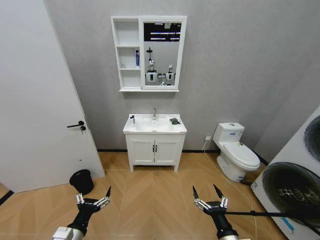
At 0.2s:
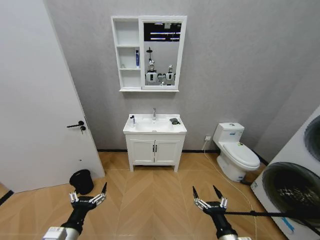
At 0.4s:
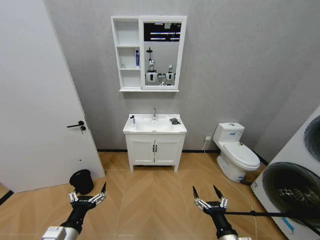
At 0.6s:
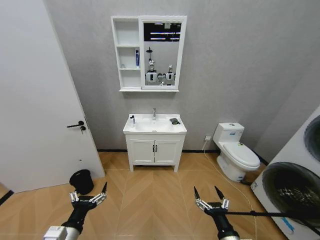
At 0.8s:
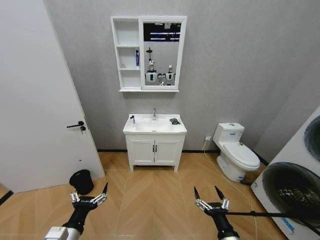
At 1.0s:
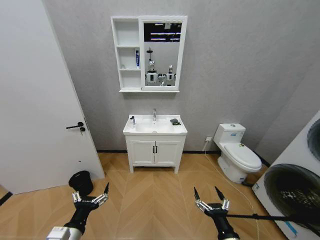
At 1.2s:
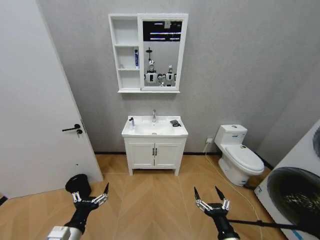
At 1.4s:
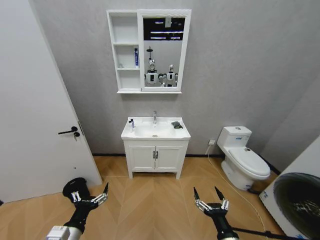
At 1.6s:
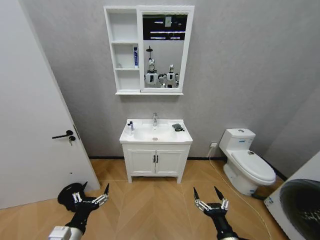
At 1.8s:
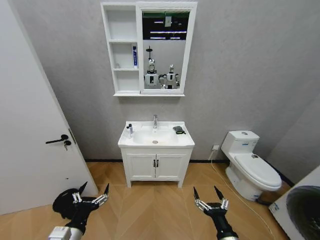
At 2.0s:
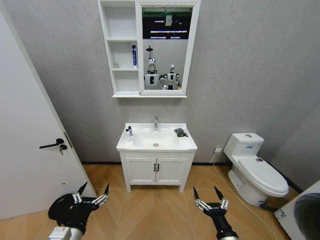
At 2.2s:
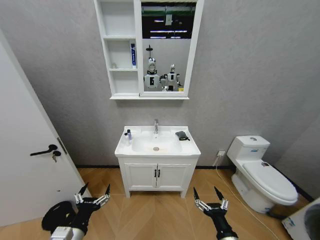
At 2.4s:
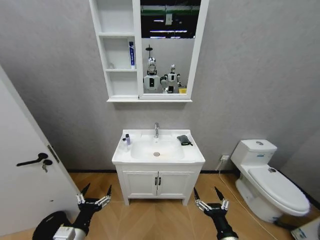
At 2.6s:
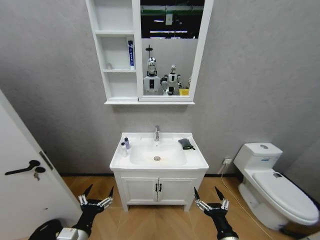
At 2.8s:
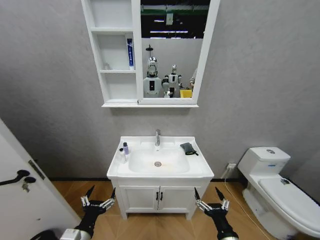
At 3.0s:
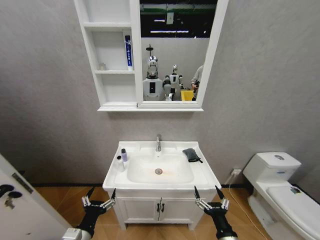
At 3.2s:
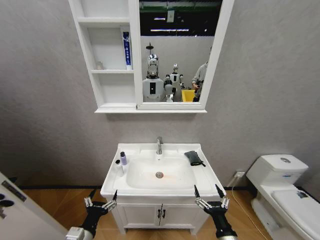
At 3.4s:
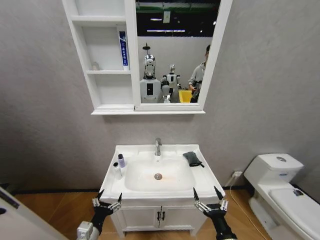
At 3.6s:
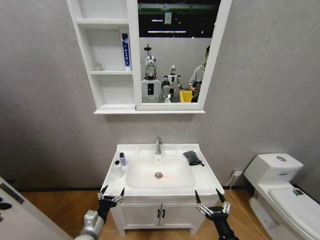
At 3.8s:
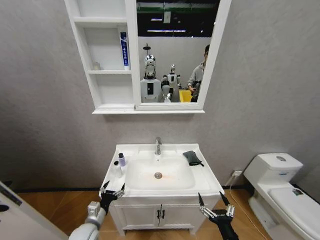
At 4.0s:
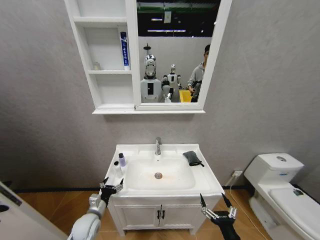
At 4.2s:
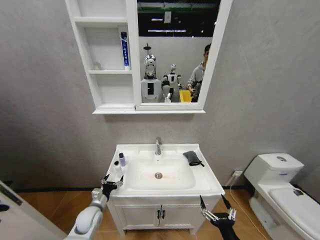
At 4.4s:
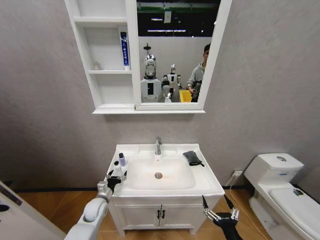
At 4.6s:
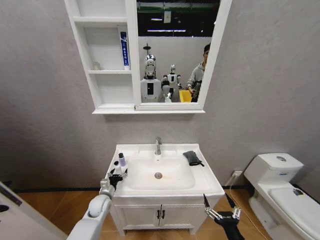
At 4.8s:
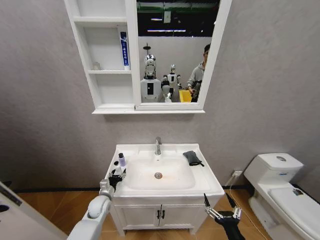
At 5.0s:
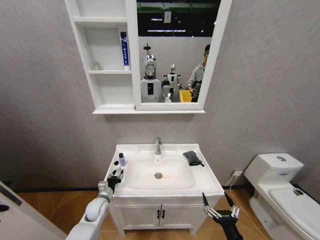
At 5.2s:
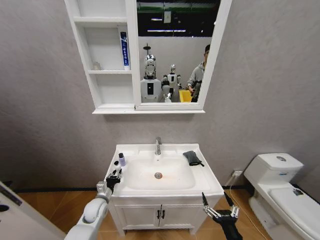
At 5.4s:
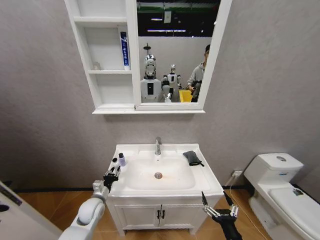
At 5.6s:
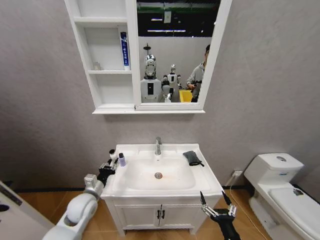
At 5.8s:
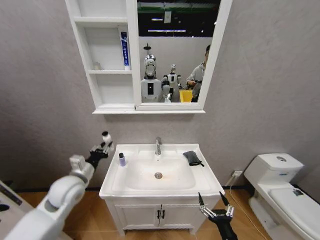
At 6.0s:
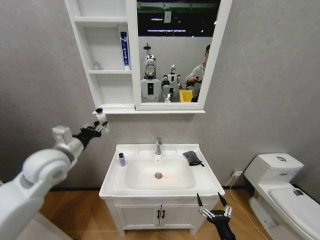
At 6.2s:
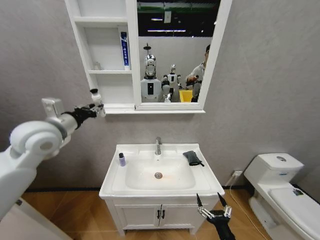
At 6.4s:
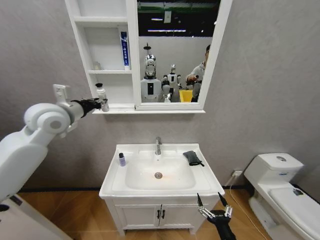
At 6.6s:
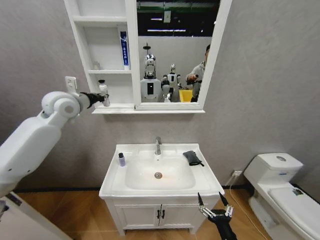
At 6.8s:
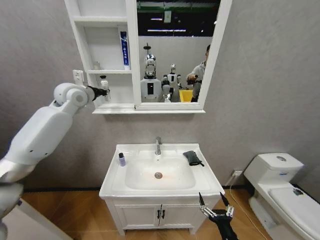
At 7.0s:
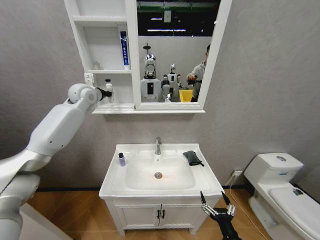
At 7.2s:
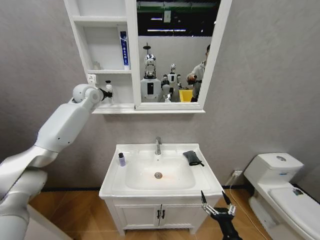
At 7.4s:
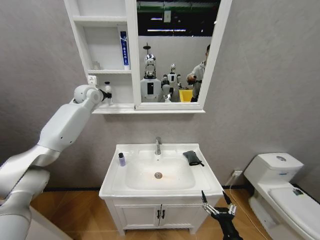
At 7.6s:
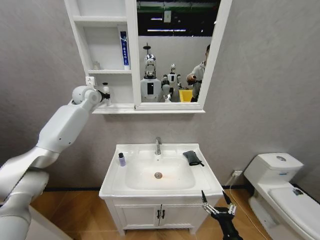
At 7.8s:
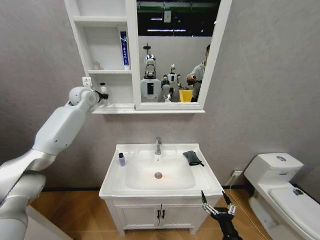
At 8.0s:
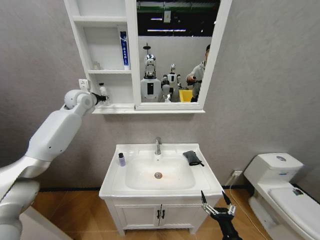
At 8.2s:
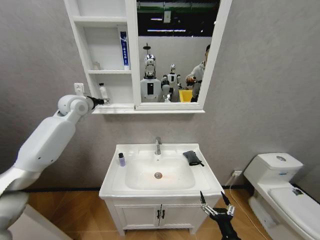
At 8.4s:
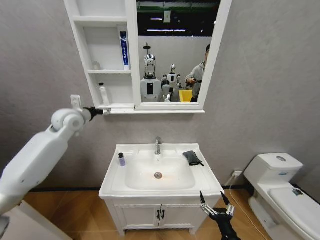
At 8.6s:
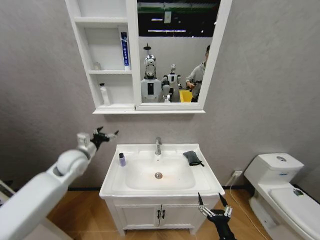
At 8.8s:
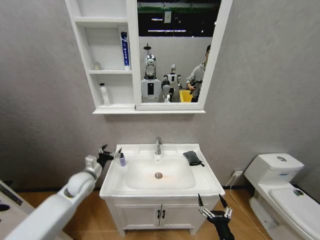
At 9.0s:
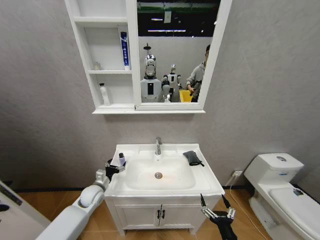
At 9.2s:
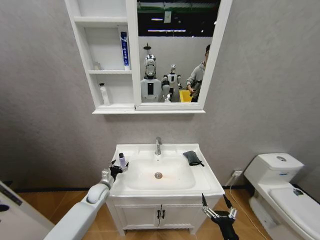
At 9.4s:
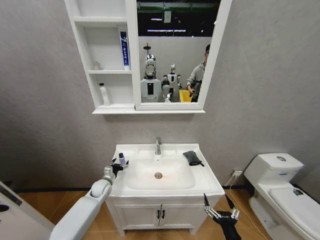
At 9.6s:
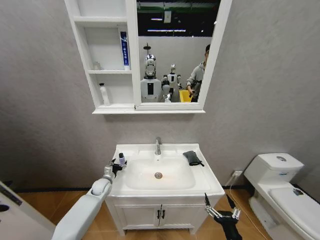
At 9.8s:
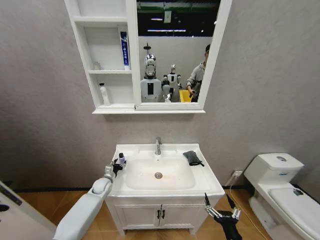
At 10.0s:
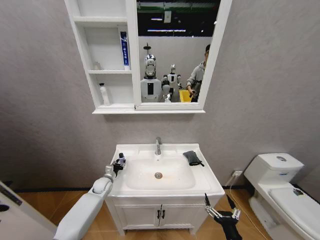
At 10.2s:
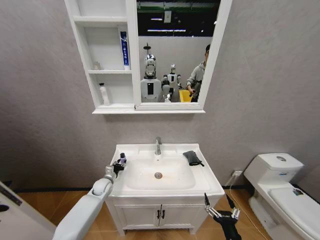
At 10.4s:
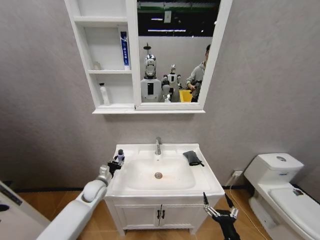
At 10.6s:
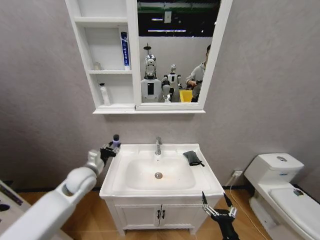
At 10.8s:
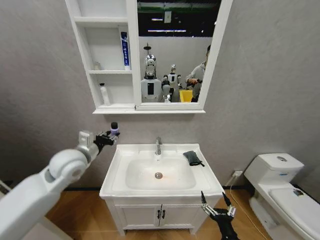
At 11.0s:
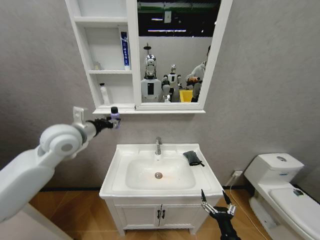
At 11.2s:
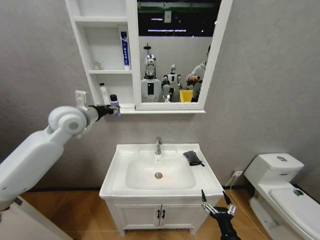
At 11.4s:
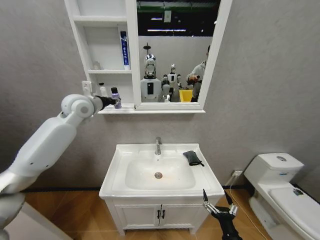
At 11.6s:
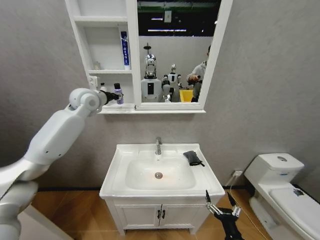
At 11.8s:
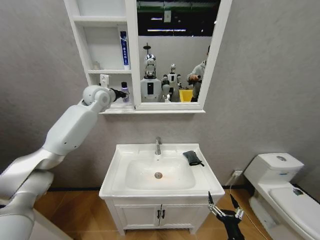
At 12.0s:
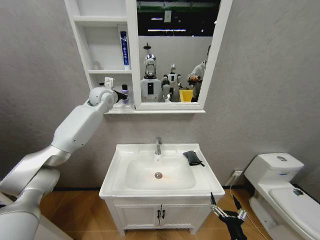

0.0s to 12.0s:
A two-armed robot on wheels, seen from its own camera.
Task of the whole recording: Move facial cleanser and shampoo from washbasin to cabinet, then wipe washbasin with towel.
3.0s to 4.4s: The left gripper travels forward and downward by some 25 cm.
4.4s to 6.0s: The left gripper is displaced upward by some 35 cm, and closes its fingers.
6.0s to 7.6s: The left gripper travels forward and upward by some 30 cm.
7.6s to 9.0s: The left gripper moves downward and backward, about 50 cm, and opens.
9.0s to 10.4s: The left gripper closes its fingers.
10.4s to 12.0s: The left gripper moves upward and forward, approximately 40 cm.

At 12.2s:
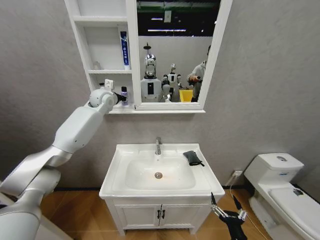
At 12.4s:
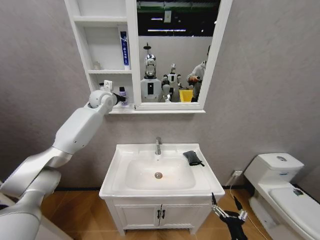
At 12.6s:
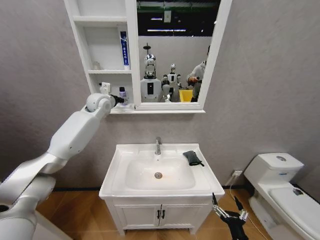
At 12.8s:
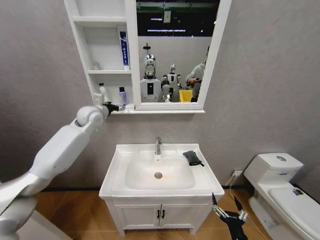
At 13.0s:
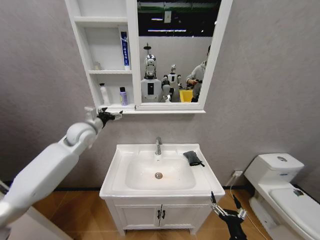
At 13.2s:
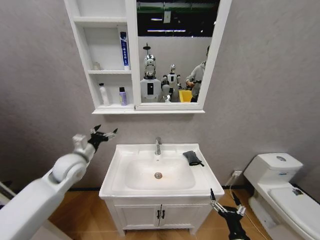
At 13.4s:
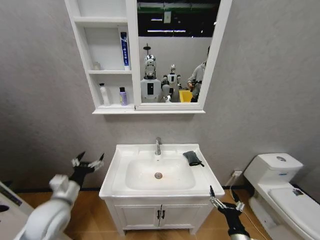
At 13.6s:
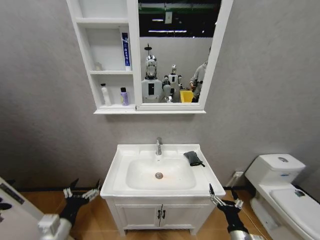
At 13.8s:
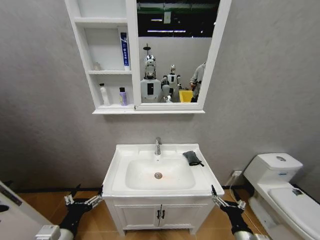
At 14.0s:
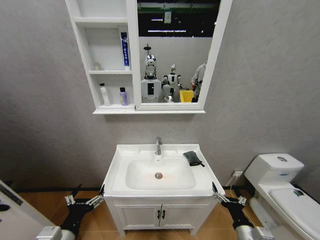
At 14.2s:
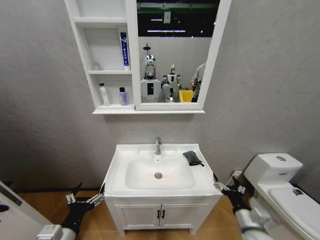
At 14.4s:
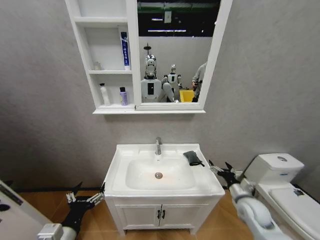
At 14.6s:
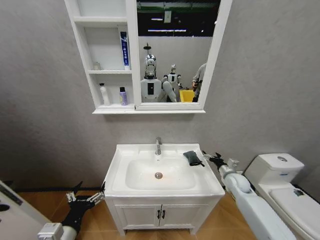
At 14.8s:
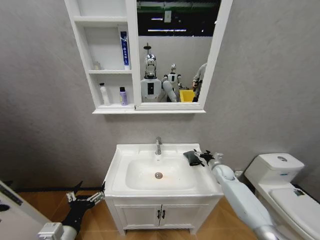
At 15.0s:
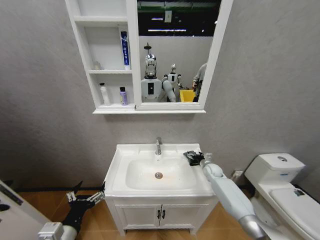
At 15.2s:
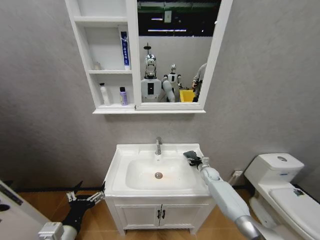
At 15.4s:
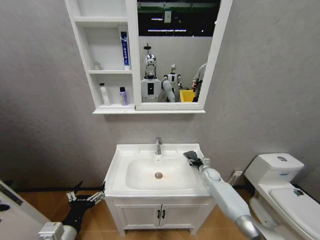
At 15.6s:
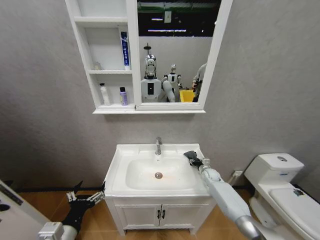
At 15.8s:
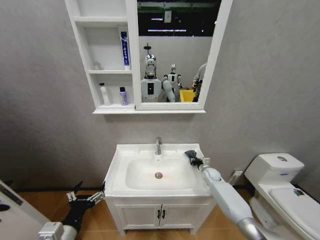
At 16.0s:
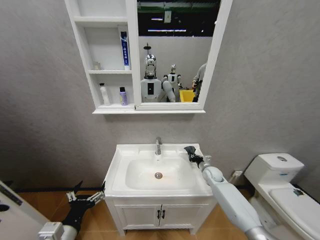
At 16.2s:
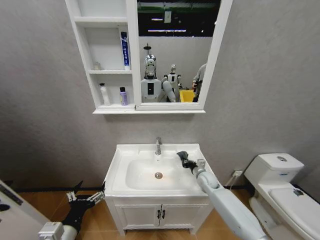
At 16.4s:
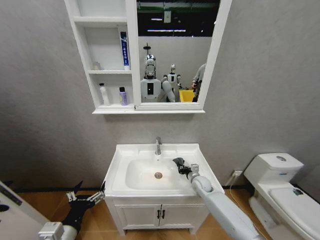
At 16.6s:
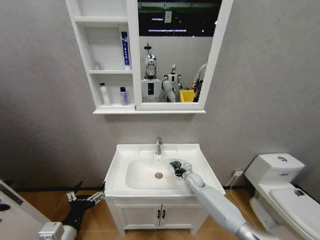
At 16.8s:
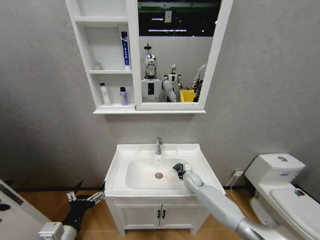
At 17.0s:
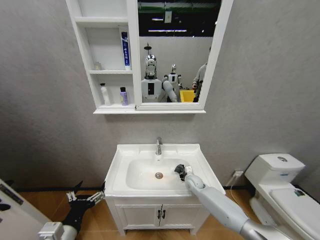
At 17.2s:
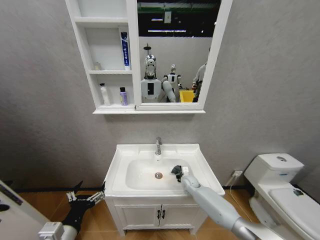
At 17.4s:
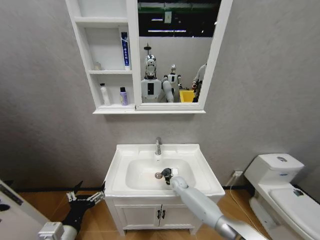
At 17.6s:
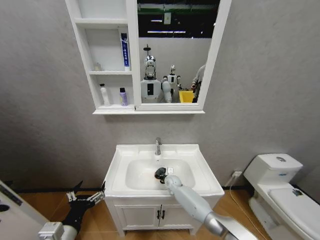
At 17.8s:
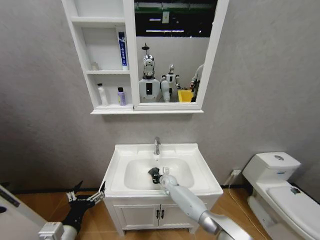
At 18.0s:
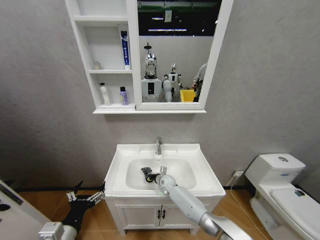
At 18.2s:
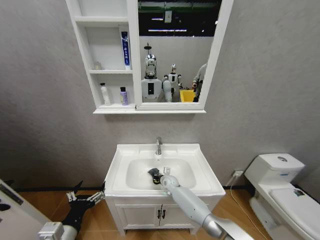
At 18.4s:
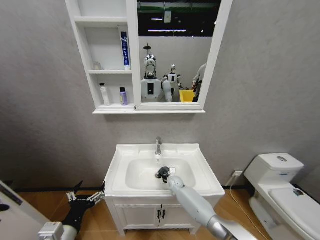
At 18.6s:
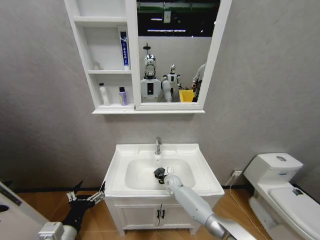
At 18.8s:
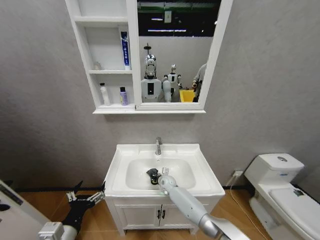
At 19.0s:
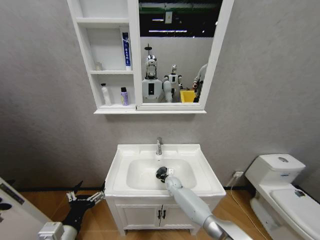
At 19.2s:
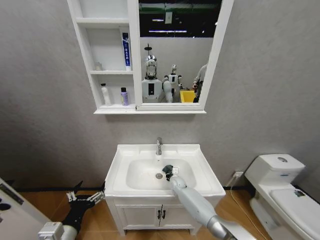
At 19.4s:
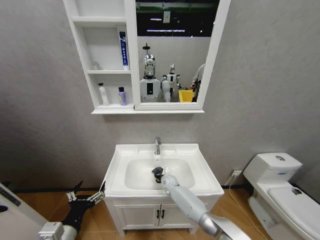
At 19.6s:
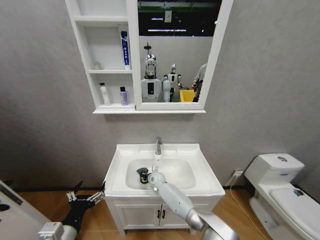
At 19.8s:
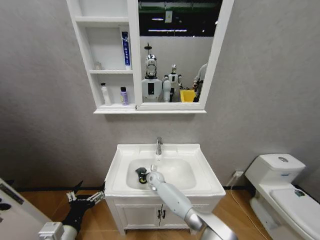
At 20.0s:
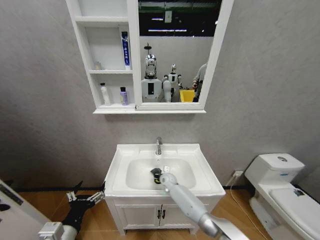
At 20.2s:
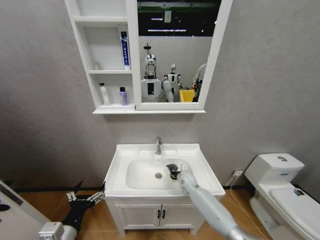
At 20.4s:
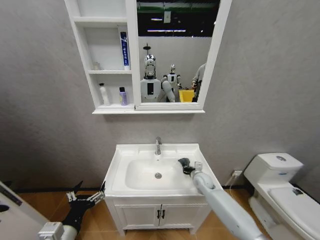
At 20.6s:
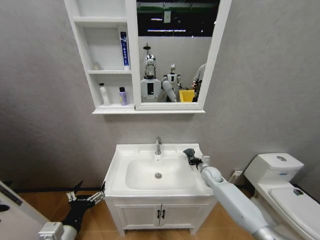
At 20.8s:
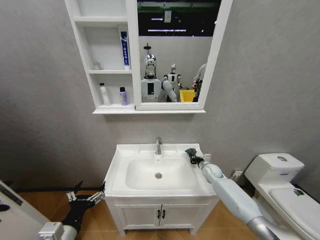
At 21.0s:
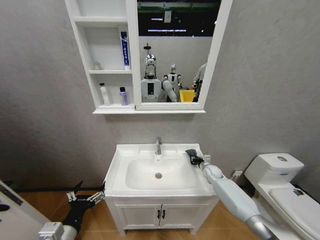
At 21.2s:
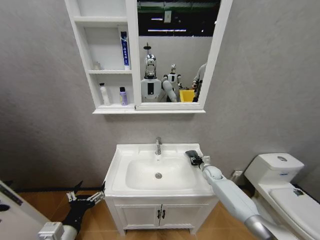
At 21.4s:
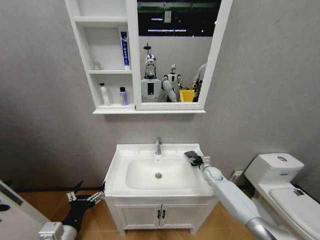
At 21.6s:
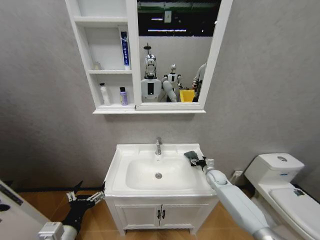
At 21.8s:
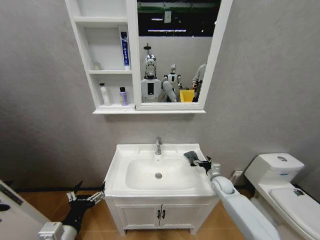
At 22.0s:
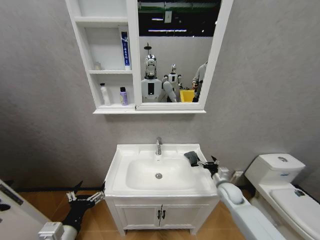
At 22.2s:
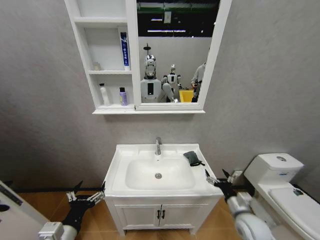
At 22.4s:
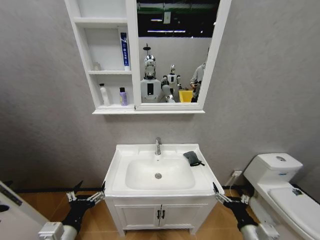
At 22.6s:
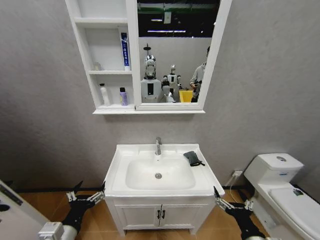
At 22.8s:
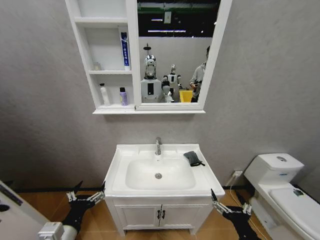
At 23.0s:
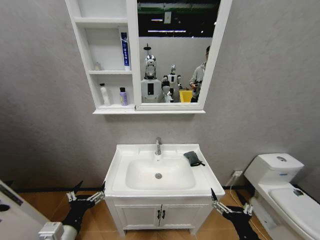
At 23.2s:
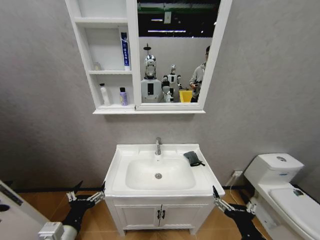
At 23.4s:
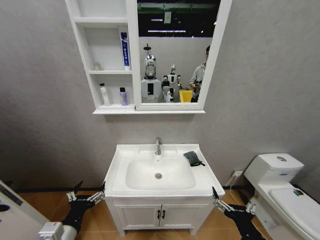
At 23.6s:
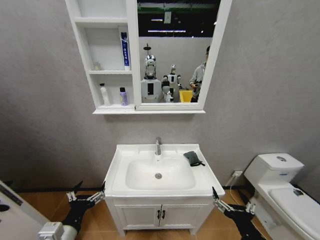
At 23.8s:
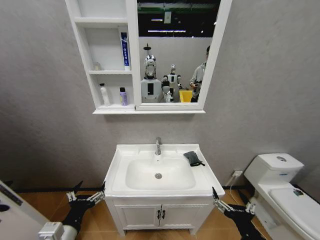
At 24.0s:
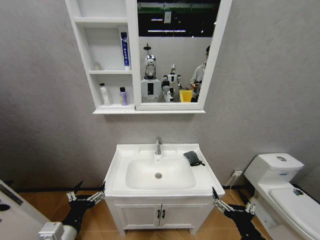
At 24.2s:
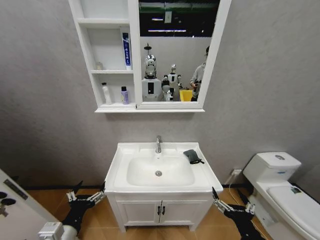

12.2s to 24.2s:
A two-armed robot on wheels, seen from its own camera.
Task of the whole recording: Move facial cleanser and shampoo from washbasin to cabinet, then wipe washbasin with towel.
12.2s to 13.8s: The left gripper is displaced backward and downward by some 60 cm, and opens its fingers.
13.8s to 15.2s: The right gripper goes approximately 40 cm forward.
15.2s to 16.6s: The right gripper goes approximately 10 cm to the left, and closes its fingers.
16.6s to 18.2s: The right gripper heads to the left, covering roughly 10 cm.
18.2s to 19.8s: The right gripper is displaced to the left by some 10 cm.
19.8s to 21.2s: The right gripper travels to the right by roughly 35 cm, and opens.
21.2s to 22.6s: The right gripper moves backward, some 40 cm, and opens up.
22.6s to 24.2s: The right gripper shifts by about 5 cm.
